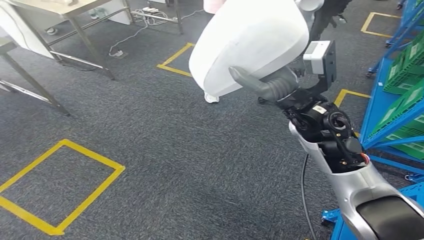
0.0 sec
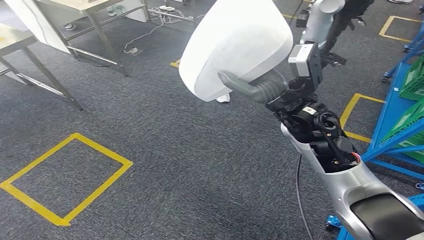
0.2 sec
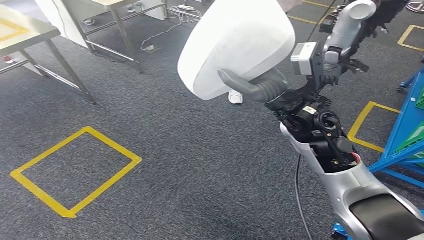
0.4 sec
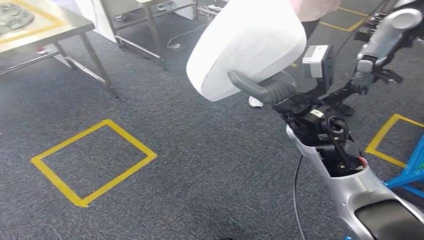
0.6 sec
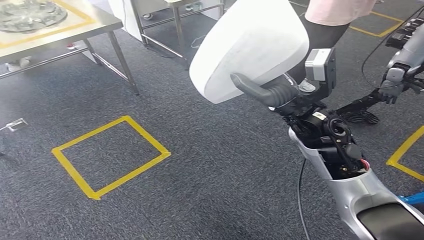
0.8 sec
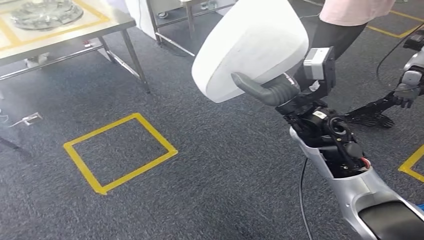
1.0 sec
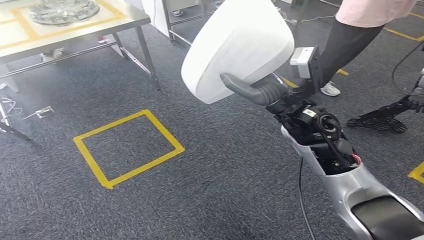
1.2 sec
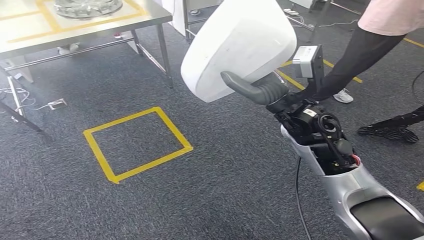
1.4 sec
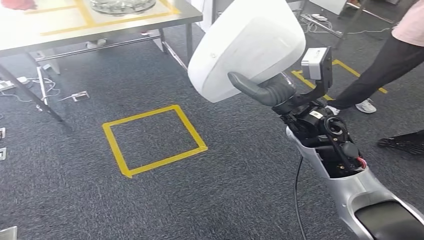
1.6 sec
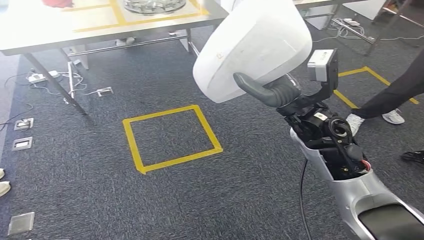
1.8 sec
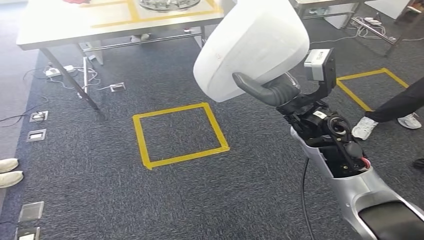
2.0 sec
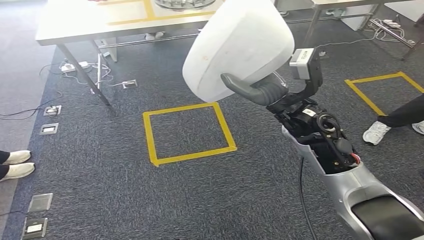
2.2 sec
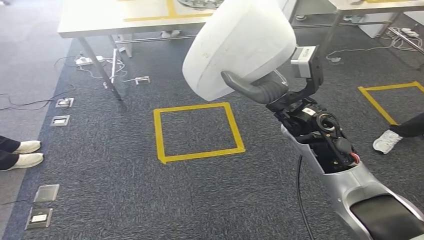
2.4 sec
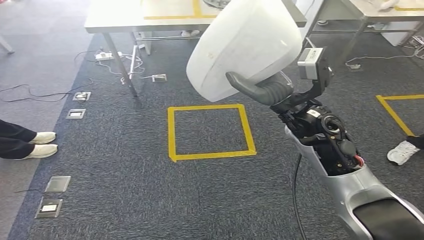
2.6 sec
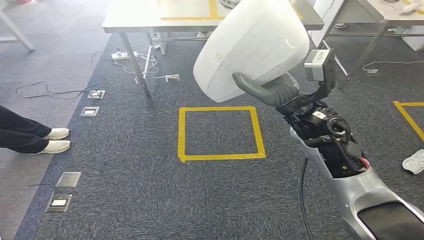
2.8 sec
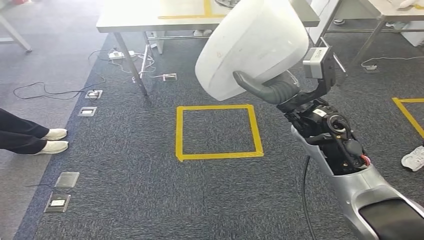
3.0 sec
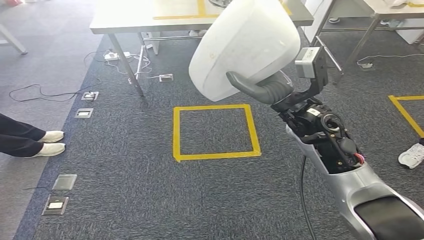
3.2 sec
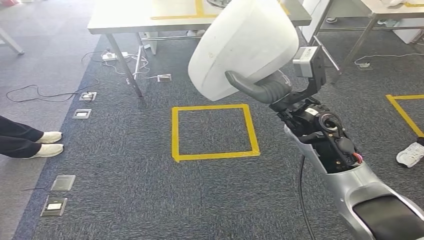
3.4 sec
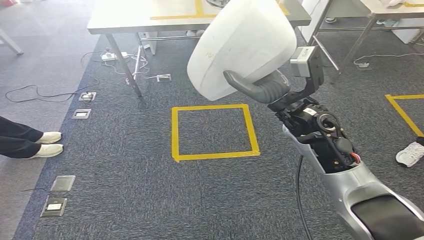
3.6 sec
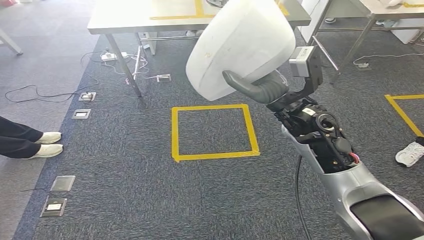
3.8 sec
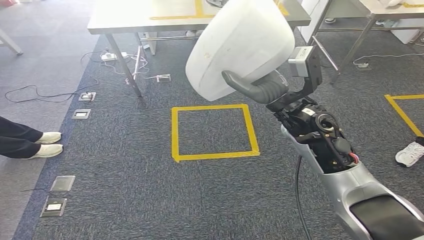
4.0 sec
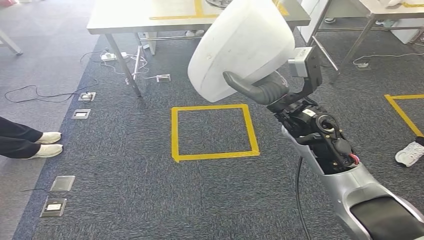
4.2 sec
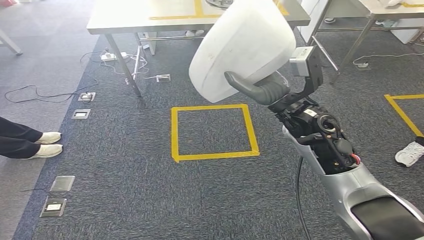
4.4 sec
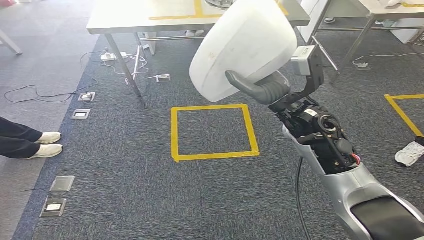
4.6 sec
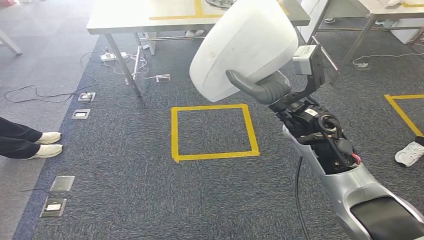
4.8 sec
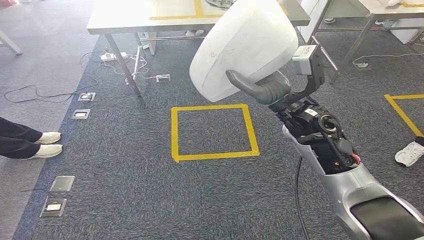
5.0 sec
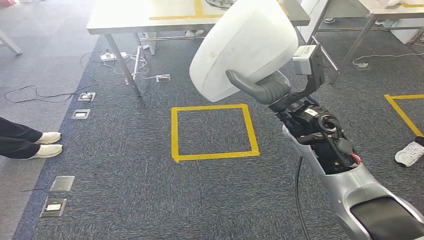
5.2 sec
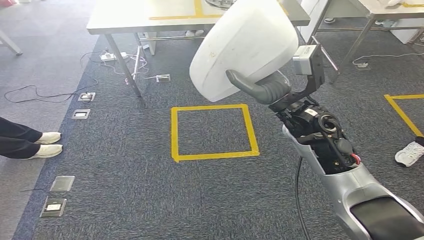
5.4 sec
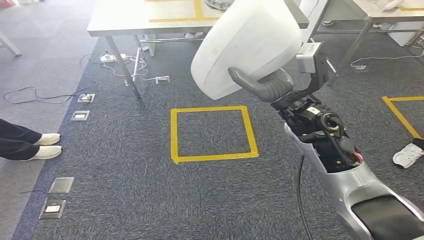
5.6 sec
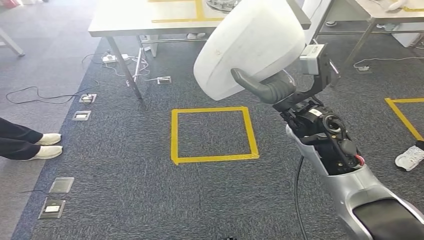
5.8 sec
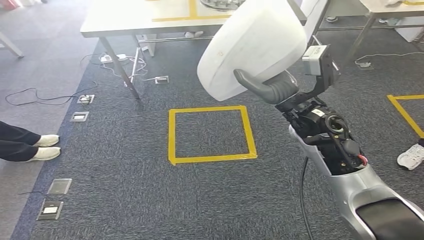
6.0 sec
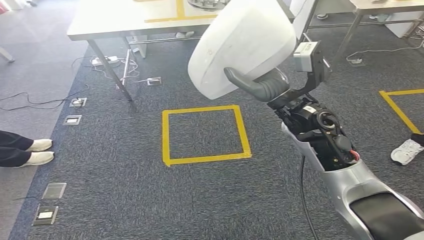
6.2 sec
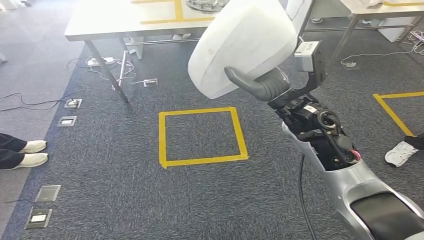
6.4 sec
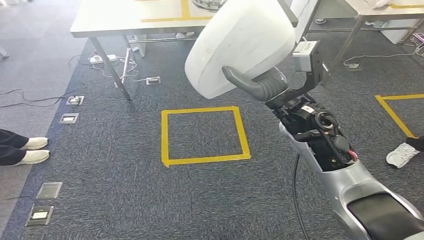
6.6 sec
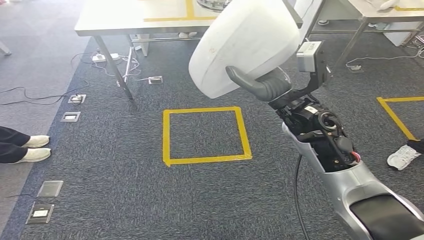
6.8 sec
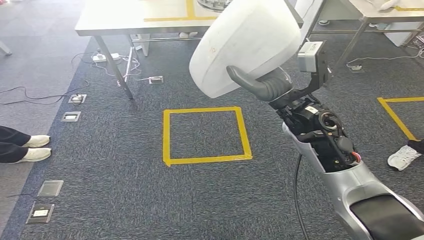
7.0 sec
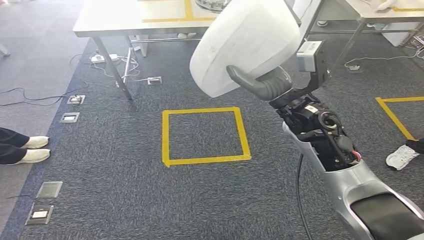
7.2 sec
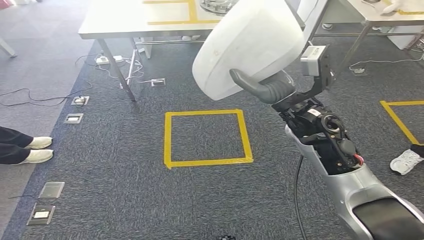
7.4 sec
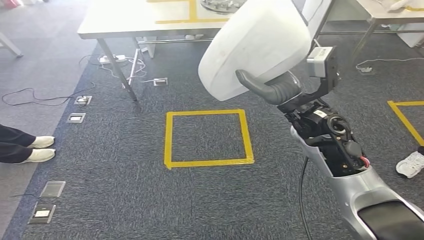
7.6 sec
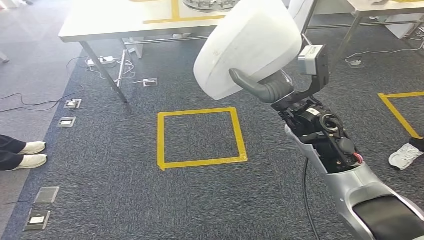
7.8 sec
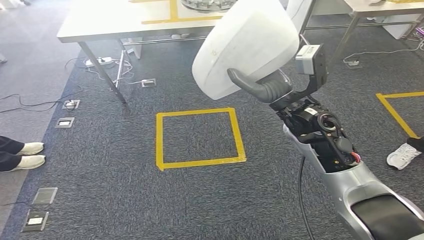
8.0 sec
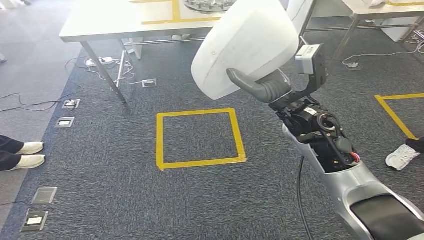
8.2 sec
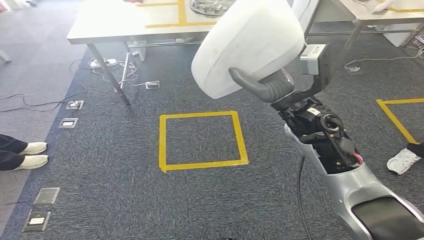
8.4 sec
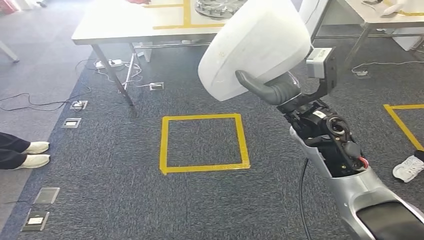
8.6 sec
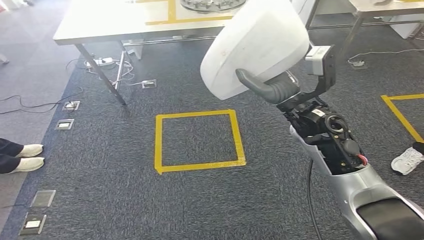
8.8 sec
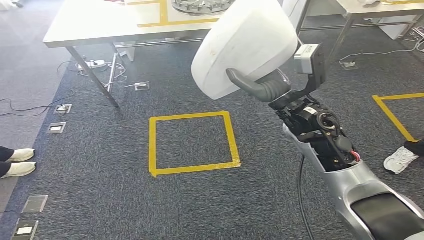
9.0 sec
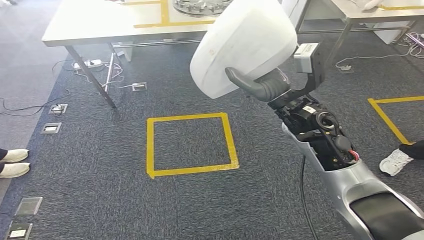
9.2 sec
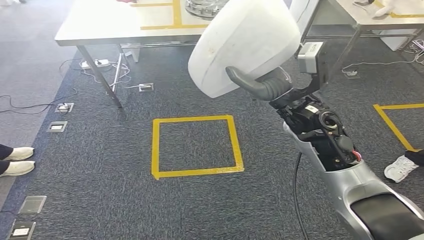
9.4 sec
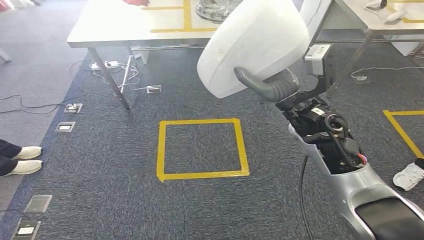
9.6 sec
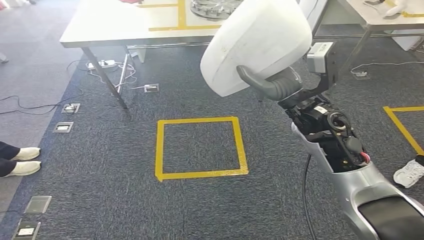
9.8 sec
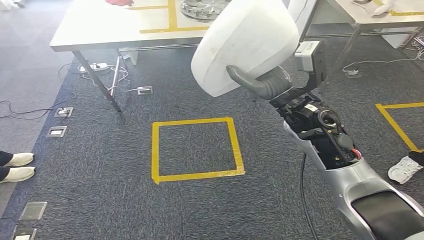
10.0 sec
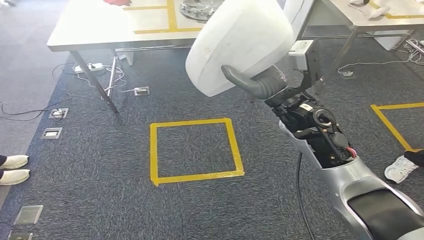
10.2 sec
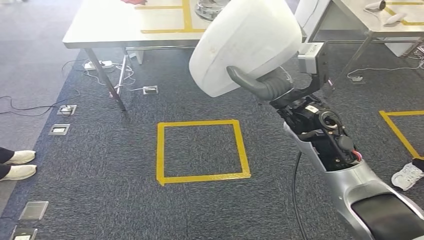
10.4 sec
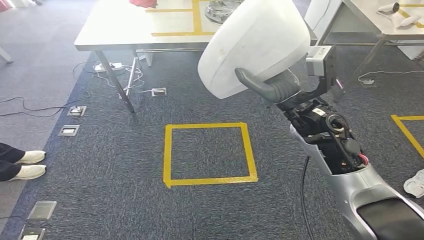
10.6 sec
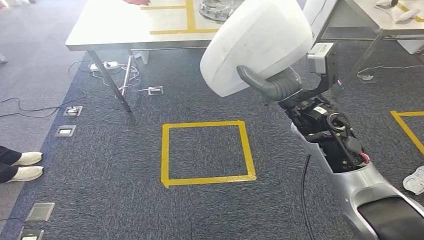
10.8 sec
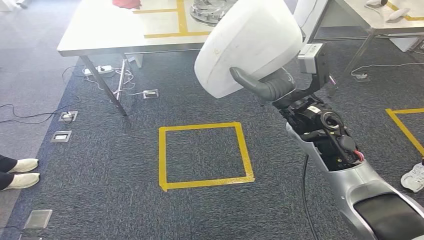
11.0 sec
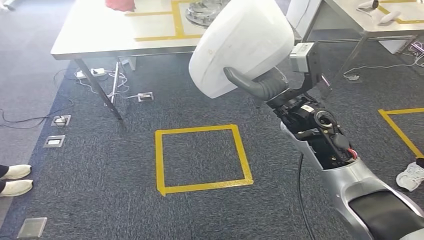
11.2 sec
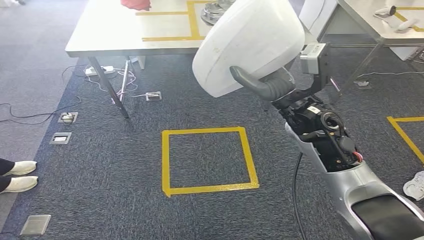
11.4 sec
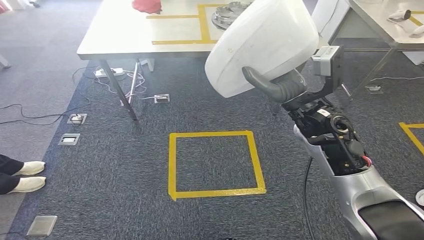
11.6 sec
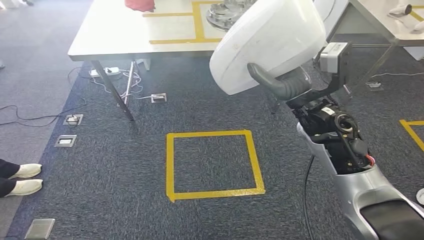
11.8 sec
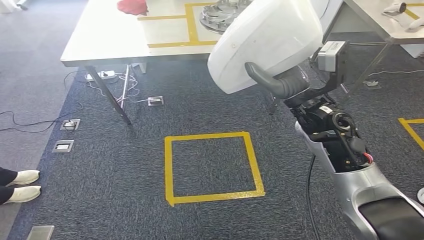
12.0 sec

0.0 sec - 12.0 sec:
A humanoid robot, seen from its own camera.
3.0 sec - 7.6 sec: The two hands keep their place.
9.0 sec - 10.4 sec: Both hands stay put.

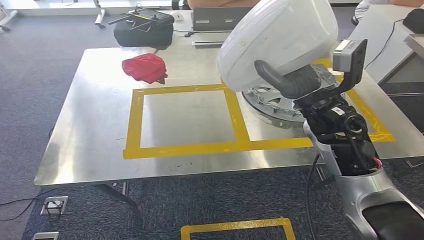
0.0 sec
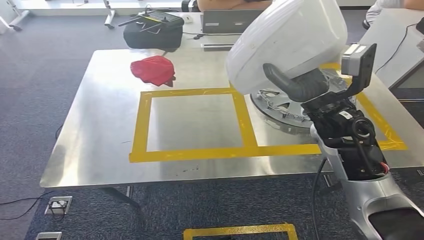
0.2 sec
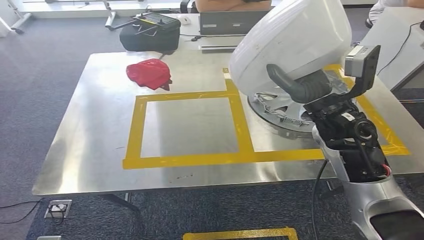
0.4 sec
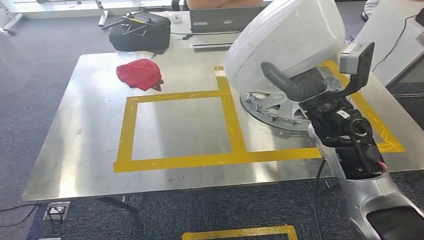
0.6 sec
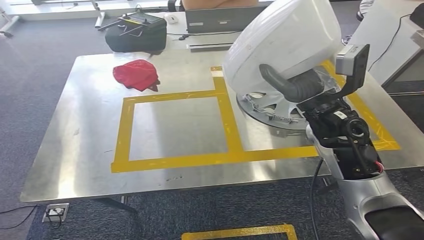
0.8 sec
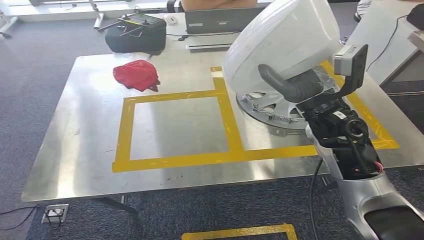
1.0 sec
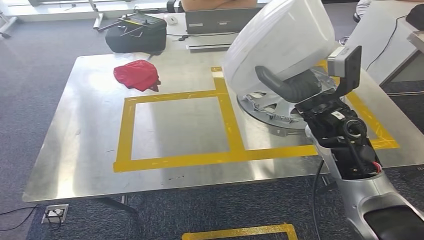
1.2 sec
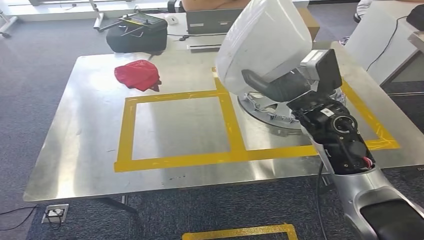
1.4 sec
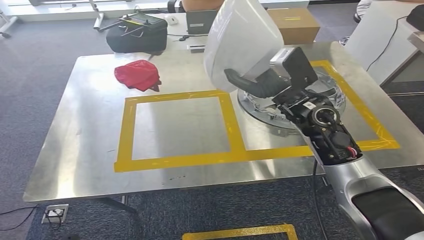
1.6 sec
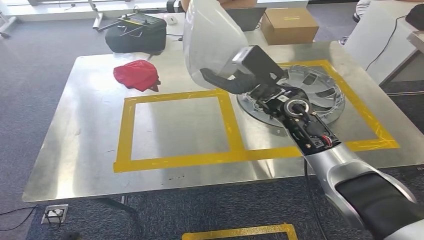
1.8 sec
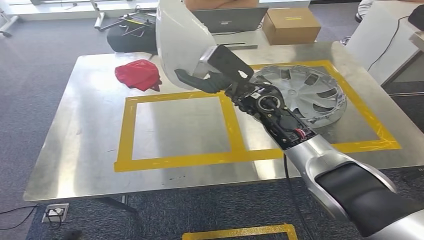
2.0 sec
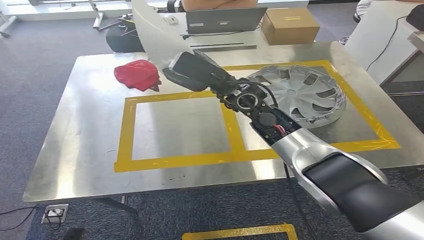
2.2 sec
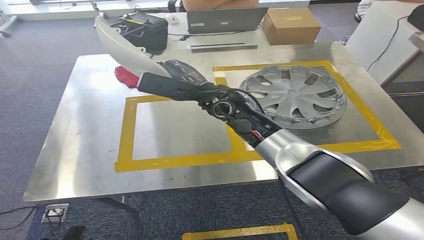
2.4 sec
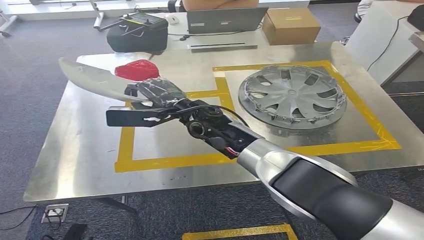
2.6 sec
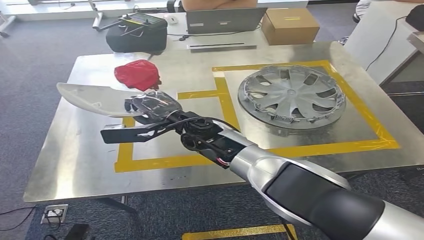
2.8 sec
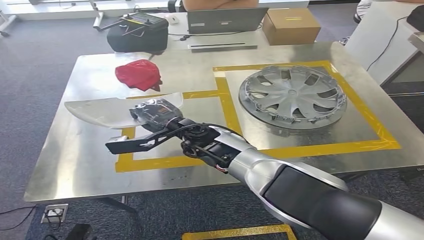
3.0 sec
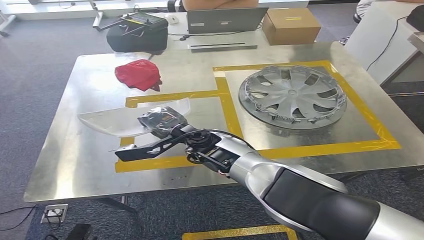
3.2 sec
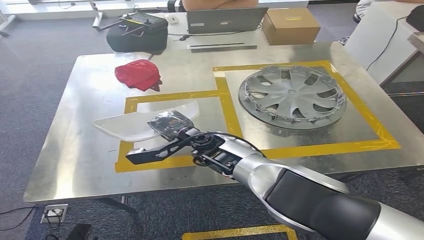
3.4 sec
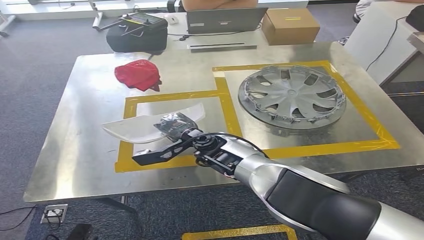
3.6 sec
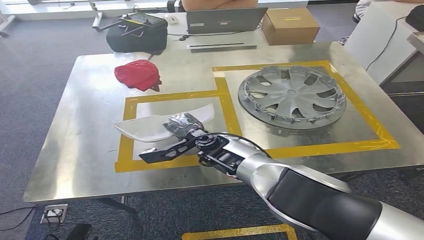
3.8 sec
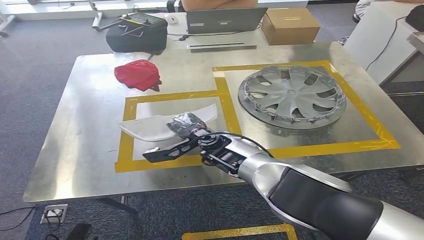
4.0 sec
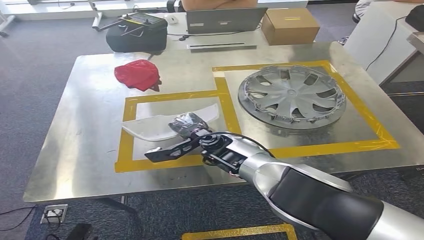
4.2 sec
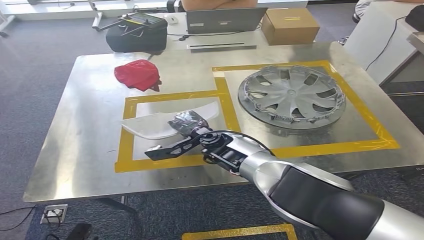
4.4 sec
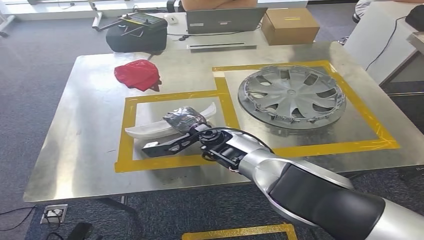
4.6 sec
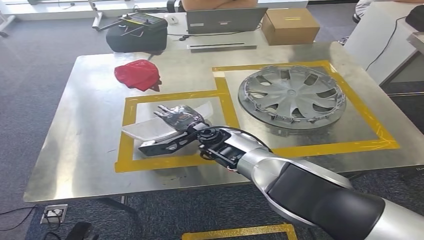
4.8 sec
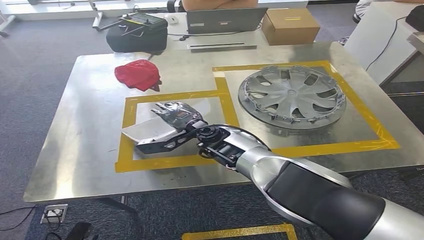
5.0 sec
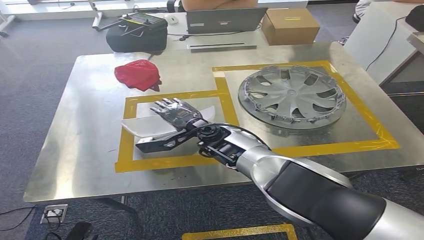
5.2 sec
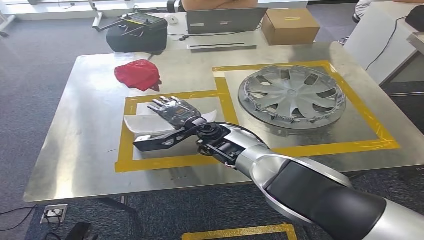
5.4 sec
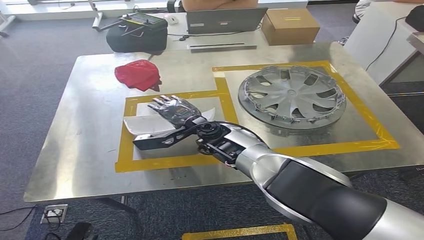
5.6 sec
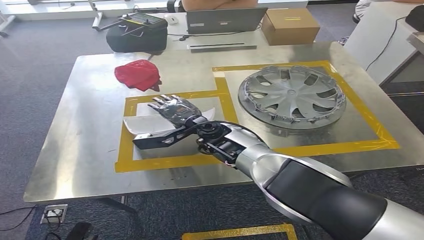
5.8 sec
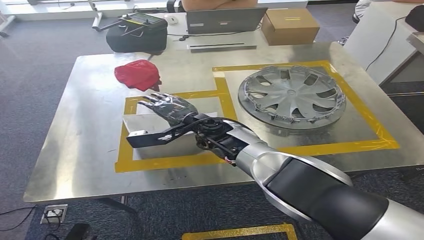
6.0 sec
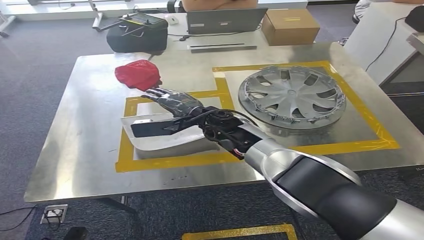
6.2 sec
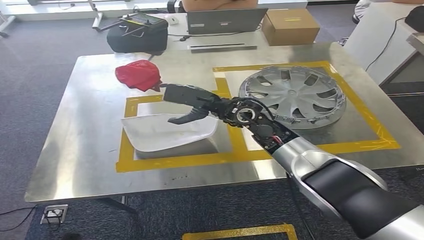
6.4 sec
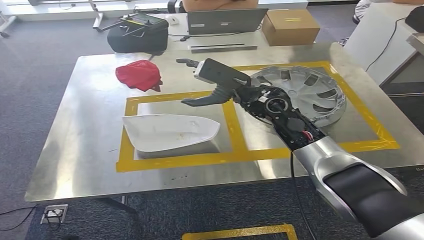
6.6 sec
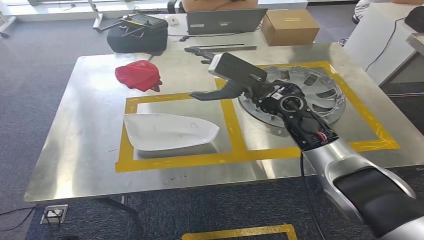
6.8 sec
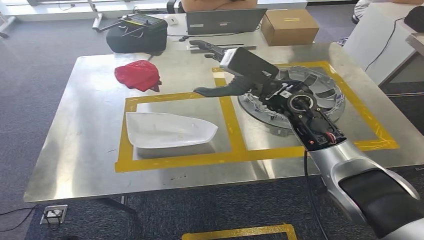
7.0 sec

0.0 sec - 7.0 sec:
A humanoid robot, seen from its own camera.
2.8 sec - 4.2 sec: The right hand is displaced downward by roughly 5 cm.
4.2 sec - 5.6 sec: The hands stay close to where they were, moving slightly.
5.6 sec - 7.0 sec: The right hand travels to the right and upward by some 20 cm.
